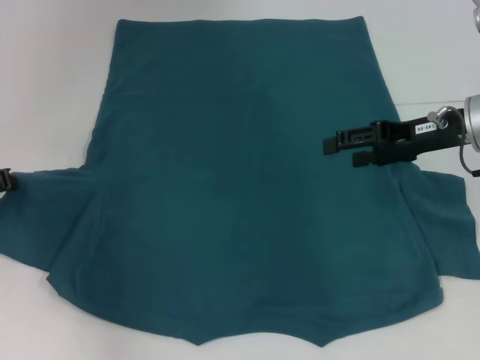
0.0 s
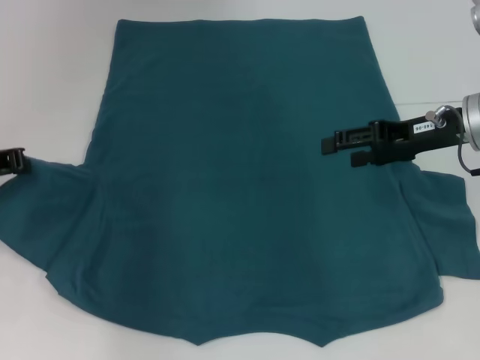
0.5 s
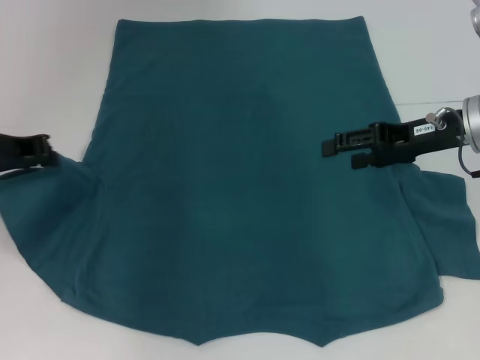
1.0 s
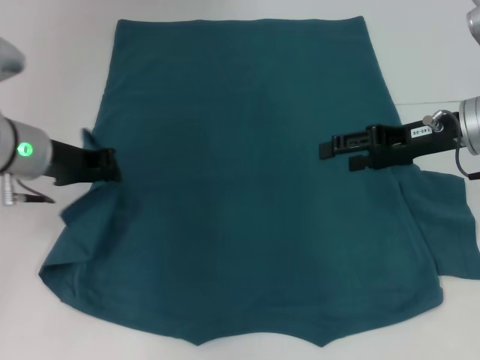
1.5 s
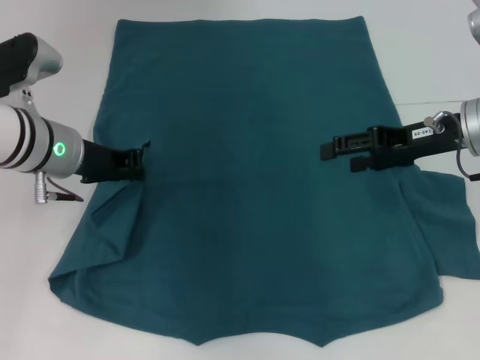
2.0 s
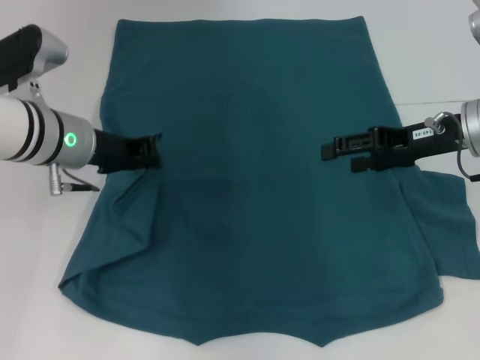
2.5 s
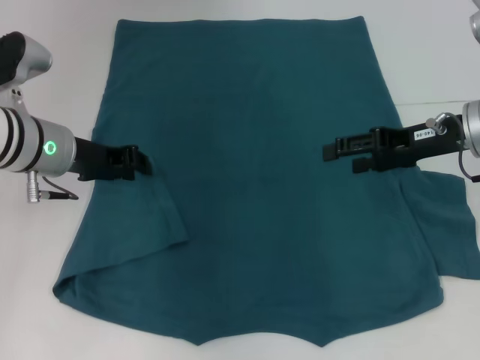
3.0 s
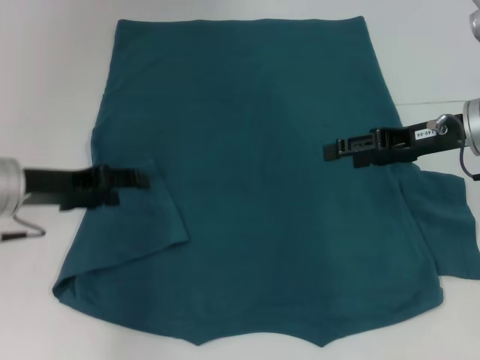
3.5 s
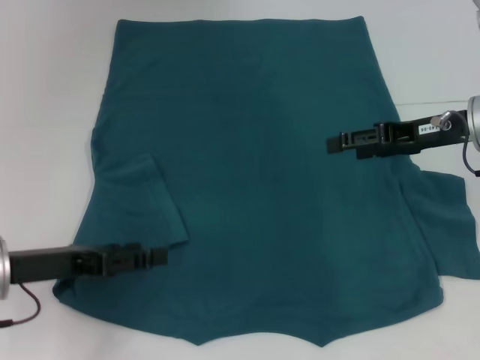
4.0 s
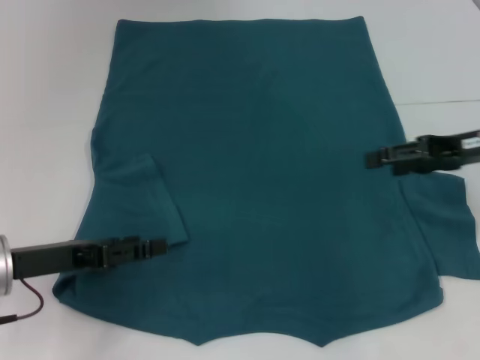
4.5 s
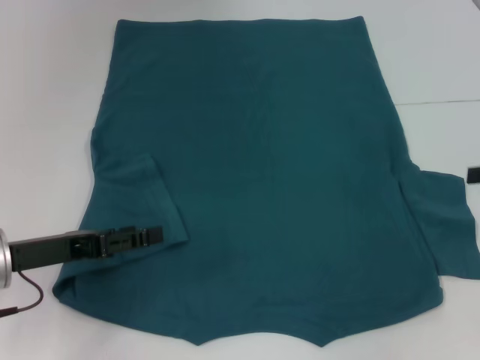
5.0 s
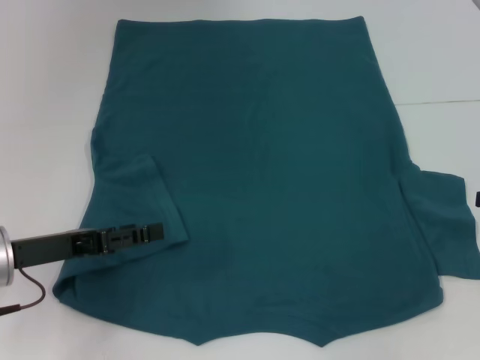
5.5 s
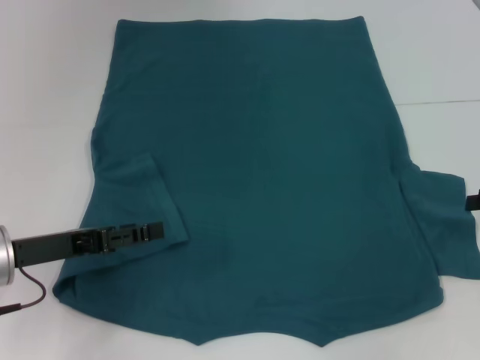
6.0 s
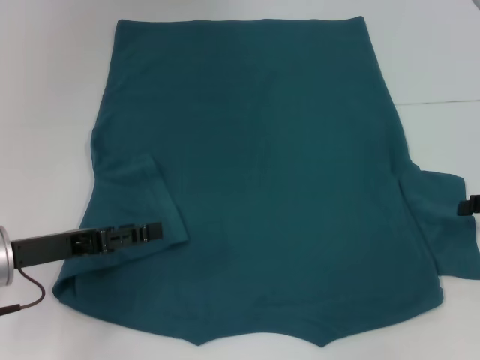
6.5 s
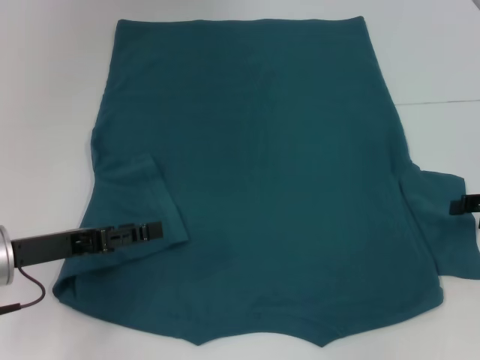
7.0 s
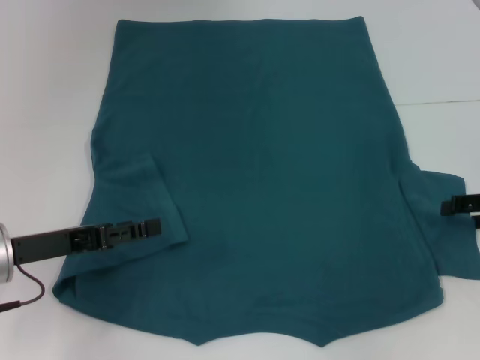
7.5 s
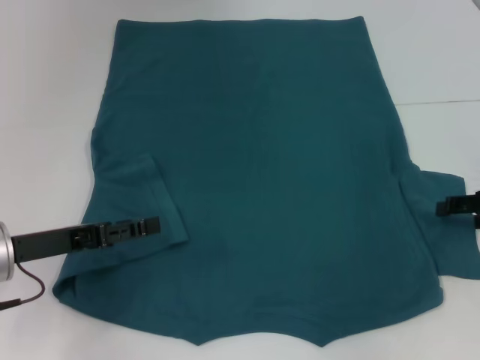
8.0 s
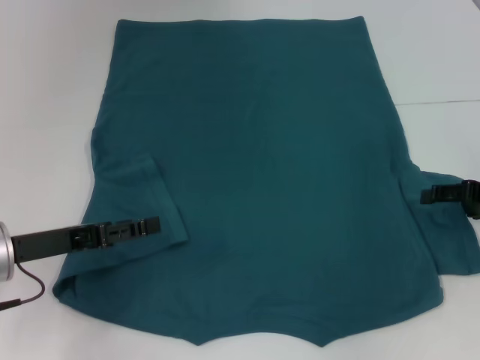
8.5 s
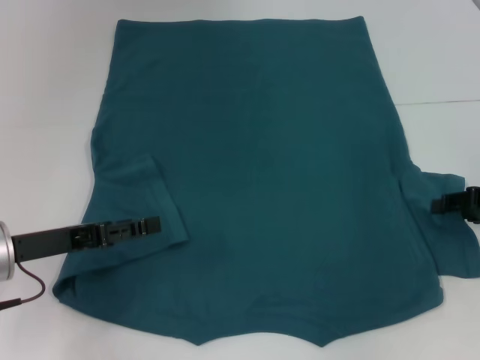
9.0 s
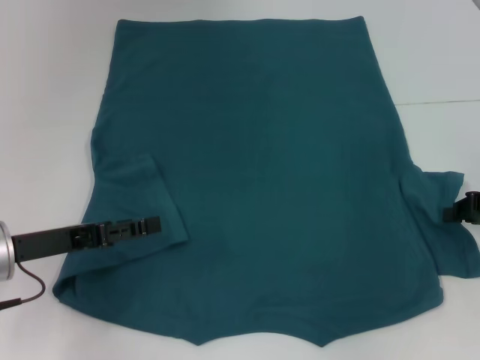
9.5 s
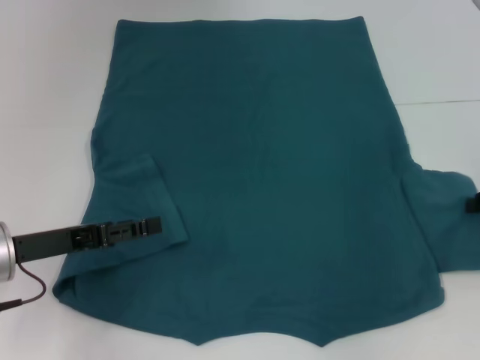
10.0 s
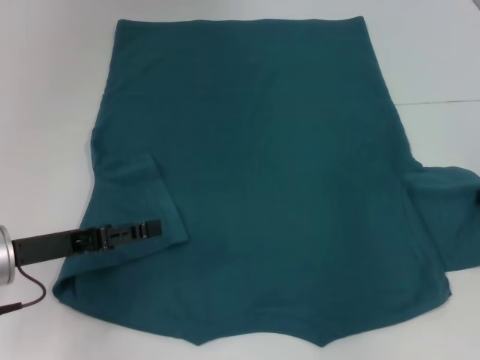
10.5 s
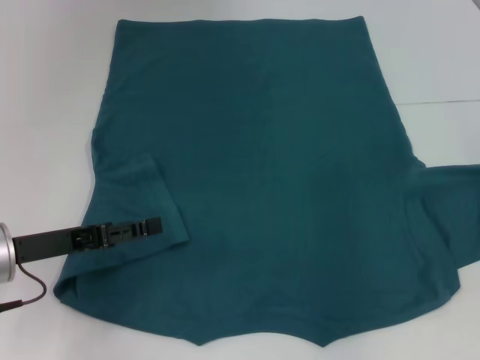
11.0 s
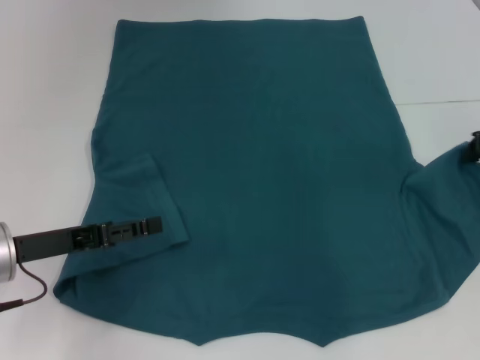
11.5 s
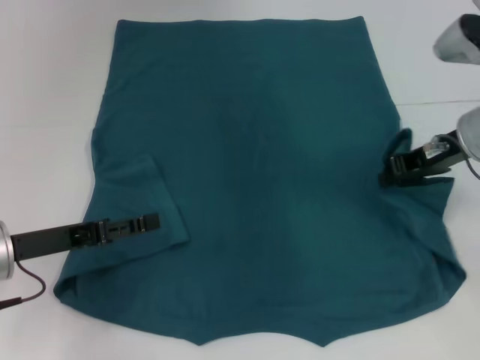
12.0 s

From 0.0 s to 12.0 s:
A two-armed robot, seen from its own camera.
Step, from 0.0 s to 3.0 s: Fold the bottom left sleeve with your left hand.
From 0.0 s to 2.0 s: The left gripper goes about 15 cm to the right.
From 2.0 s to 4.0 s: The left gripper goes some 15 cm backward and to the left, and opens.
From 4.0 s to 6.0 s: The right gripper heads to the right and backward, covering approximately 15 cm.
From 6.0 s to 8.0 s: The grippers move only a little.
From 8.0 s to 10.0 s: The right gripper closes up.
From 10.0 s to 12.0 s: The right gripper goes approximately 15 cm to the left, forward and upward.

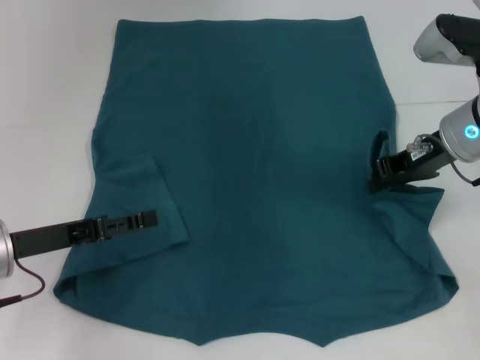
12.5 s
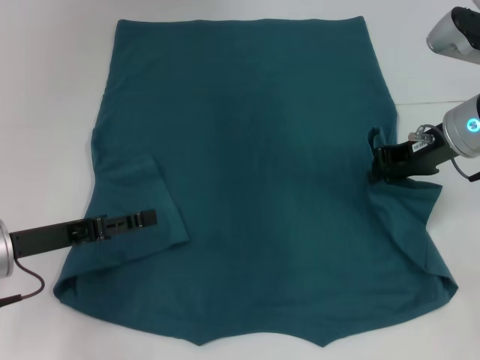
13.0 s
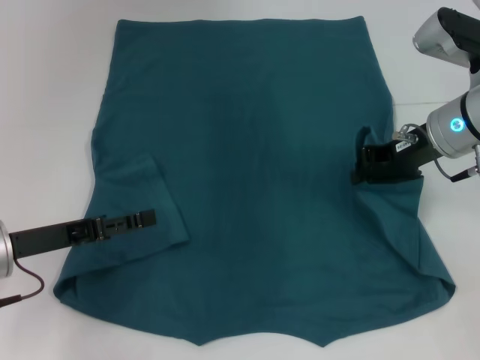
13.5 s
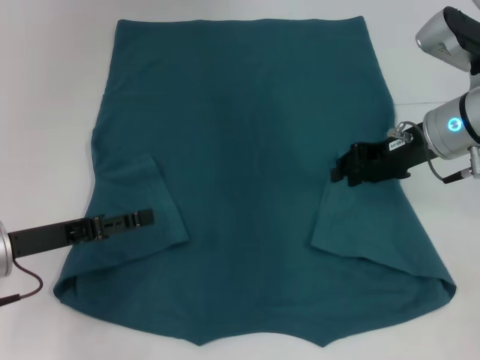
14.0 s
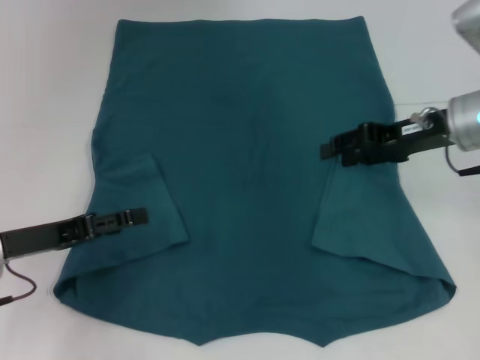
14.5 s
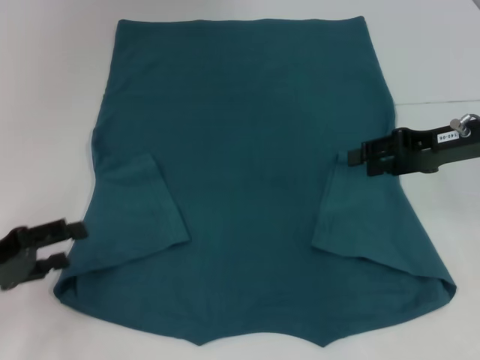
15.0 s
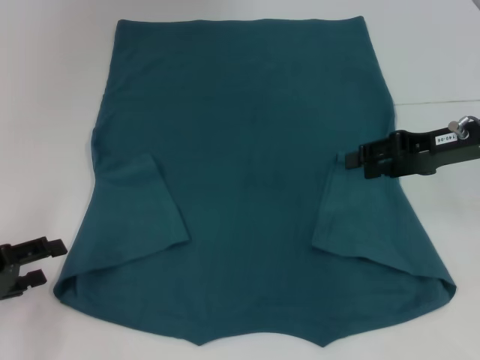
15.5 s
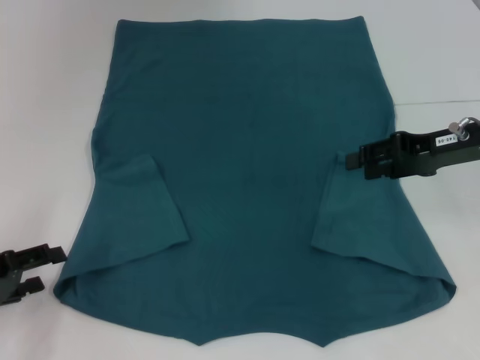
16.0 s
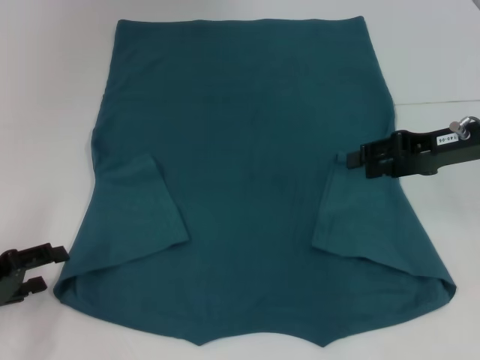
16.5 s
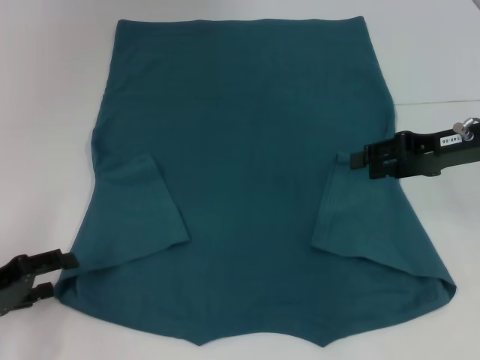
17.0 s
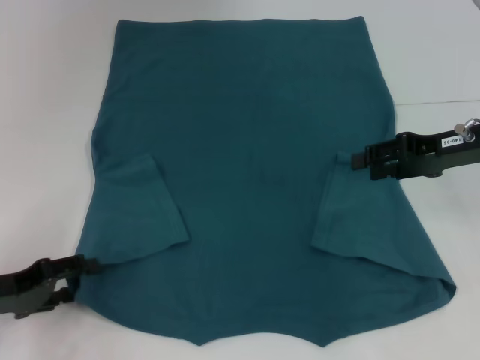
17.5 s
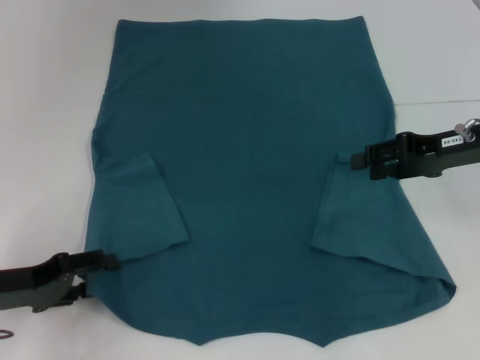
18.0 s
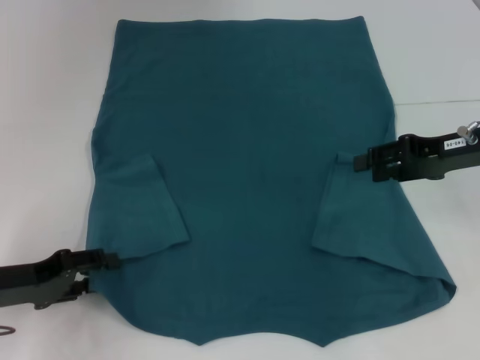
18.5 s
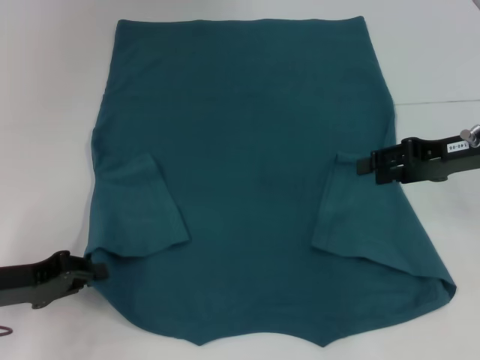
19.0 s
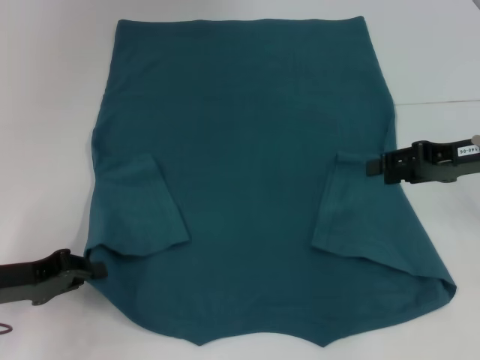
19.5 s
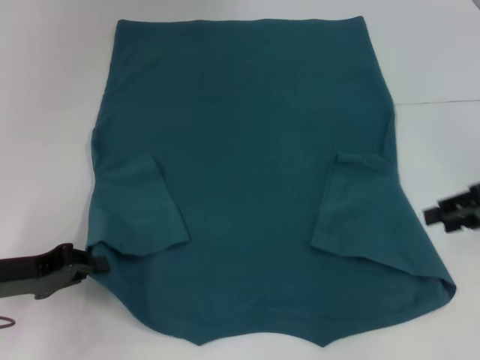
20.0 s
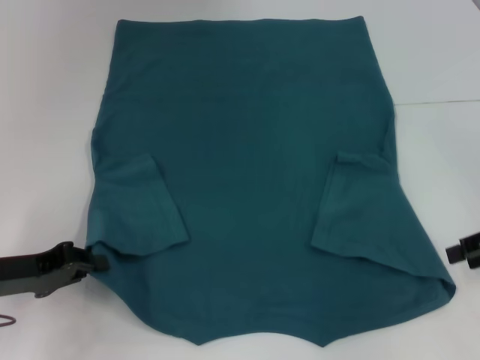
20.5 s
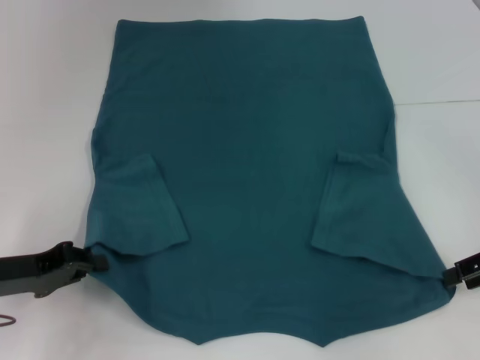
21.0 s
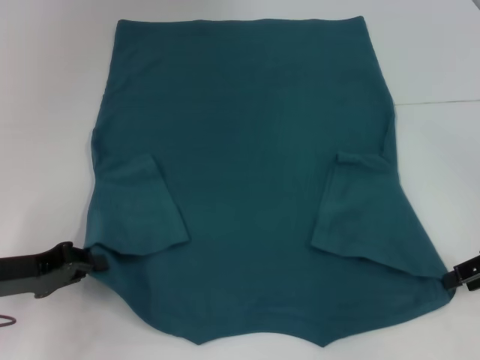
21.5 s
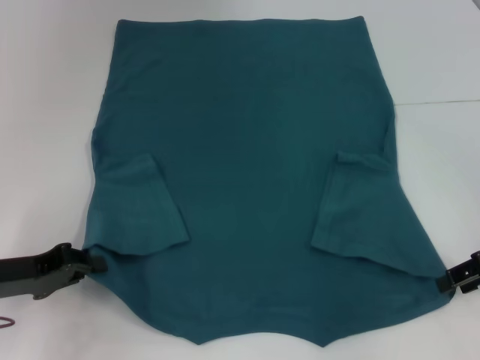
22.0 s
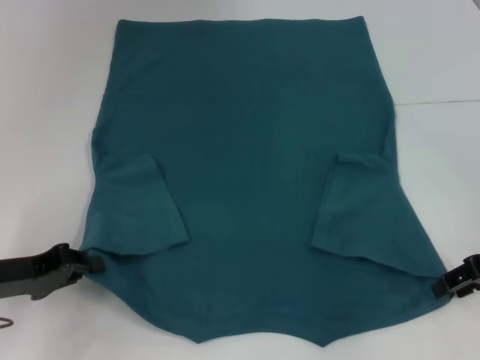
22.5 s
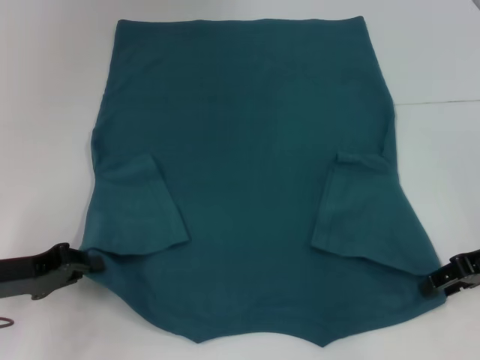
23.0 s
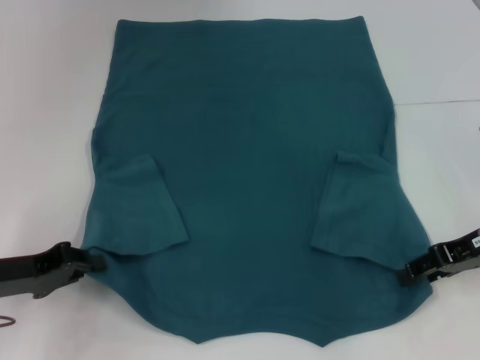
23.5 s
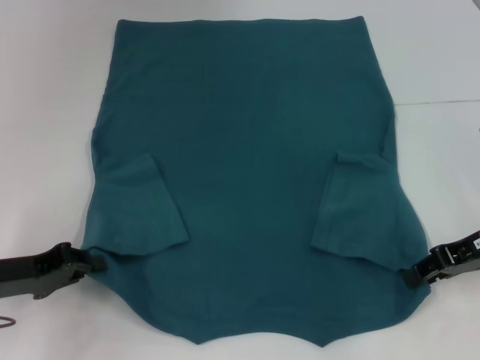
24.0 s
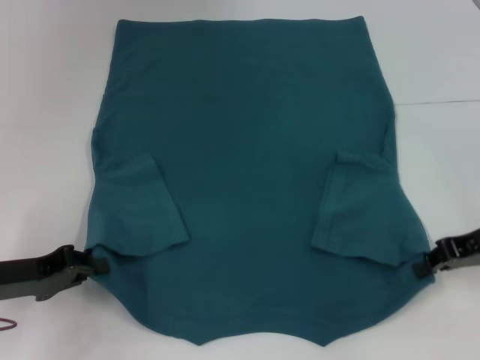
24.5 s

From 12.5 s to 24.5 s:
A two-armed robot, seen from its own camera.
Step, from 14.5 s to 19.0 s: Grab the bottom left corner with your left hand.
Step, from 19.5 s to 24.5 s: Grab the bottom right corner with your right hand.
From 12.5 s to 14.5 s: The right gripper opens.
From 14.5 s to 16.5 s: The left gripper shifts roughly 5 cm to the left.
From 16.5 s to 18.5 s: There are only small adjustments of the grippers.
From 18.5 s to 20.5 s: The right gripper shifts approximately 10 cm to the right and backward, while the left gripper closes its fingers.
From 20.5 s to 22.5 s: There are only small adjustments of the grippers.
From 22.5 s to 24.5 s: The right gripper closes up.

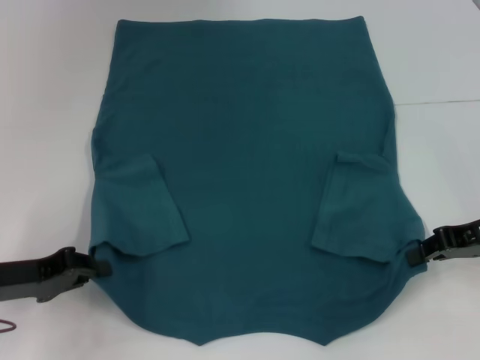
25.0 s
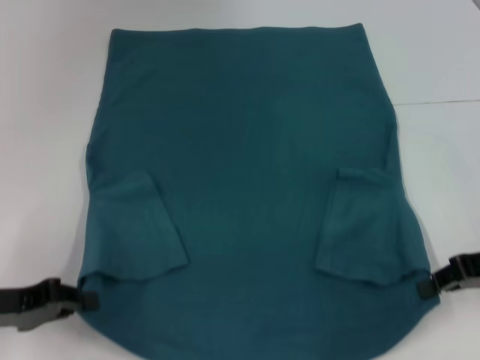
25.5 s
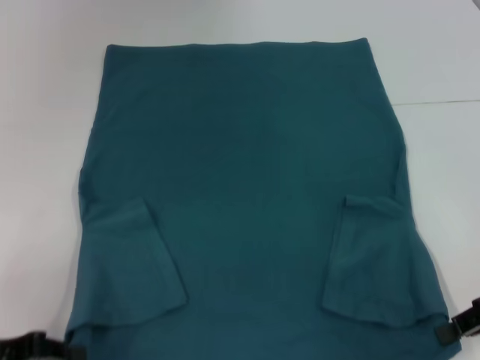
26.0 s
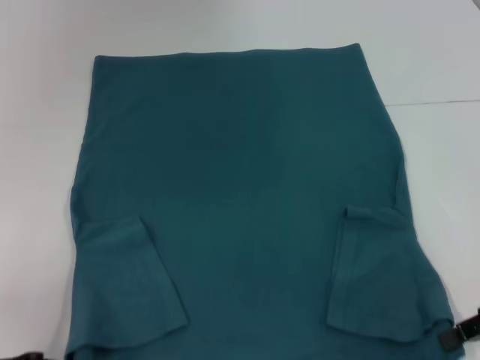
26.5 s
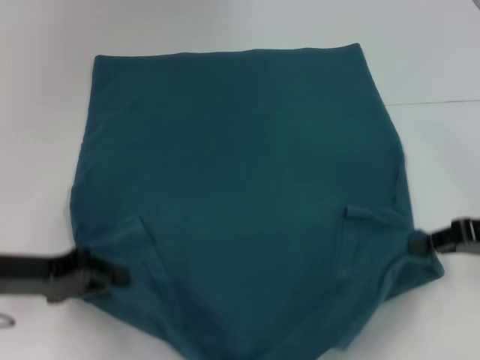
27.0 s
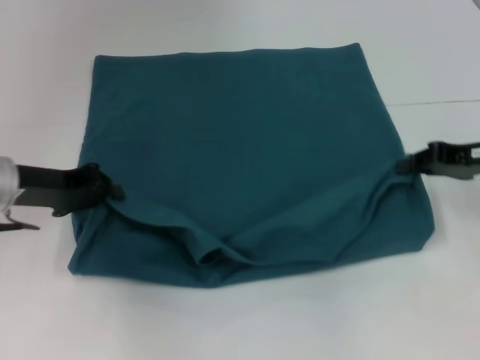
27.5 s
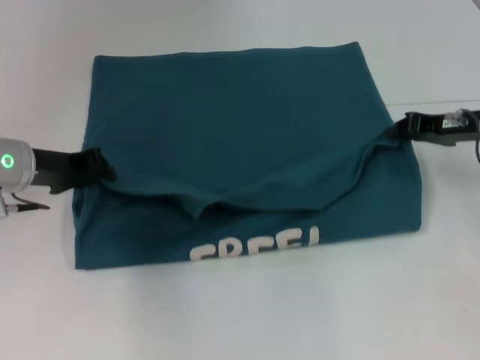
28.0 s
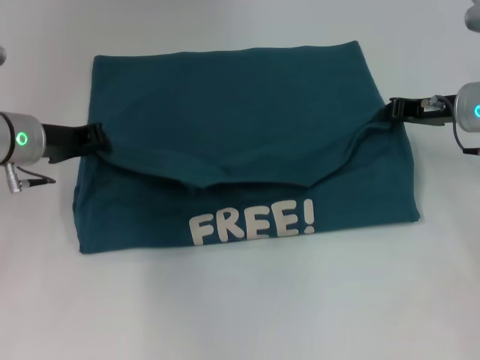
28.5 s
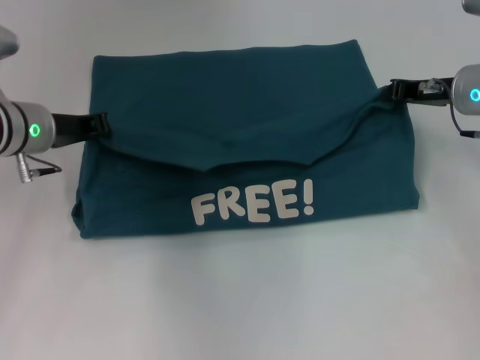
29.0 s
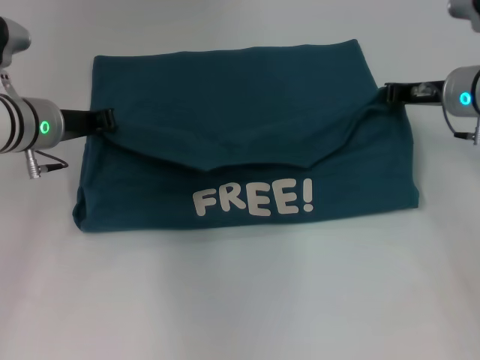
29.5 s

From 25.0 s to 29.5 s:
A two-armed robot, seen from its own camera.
From 25.0 s to 27.0 s: The left gripper moves roughly 10 cm backward and comes back.
From 27.0 s to 29.5 s: The left gripper travels forward and to the right by some 15 cm, while the right gripper goes some 15 cm forward and to the left.
